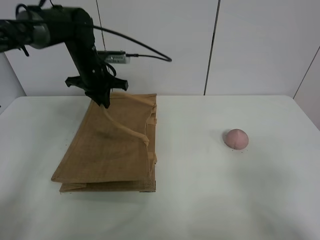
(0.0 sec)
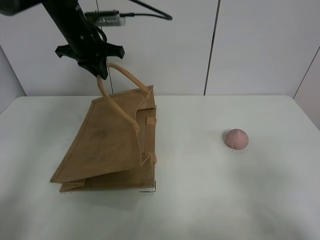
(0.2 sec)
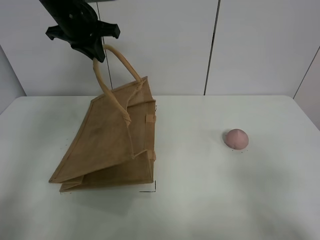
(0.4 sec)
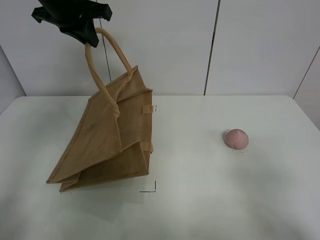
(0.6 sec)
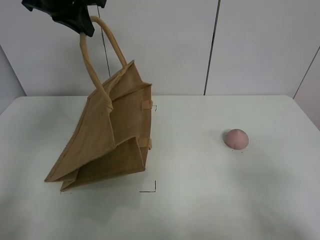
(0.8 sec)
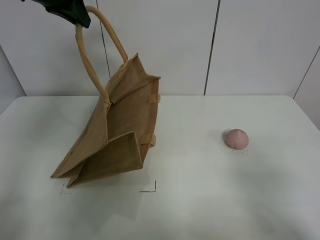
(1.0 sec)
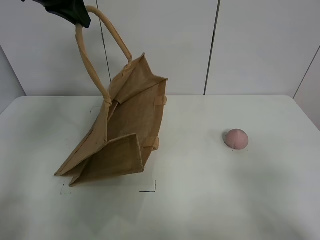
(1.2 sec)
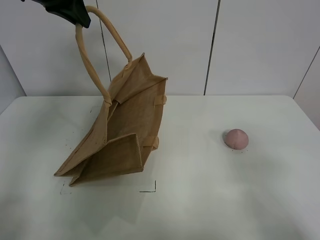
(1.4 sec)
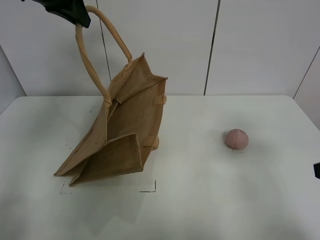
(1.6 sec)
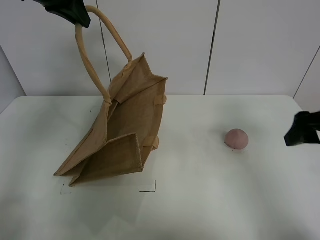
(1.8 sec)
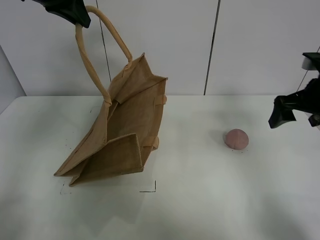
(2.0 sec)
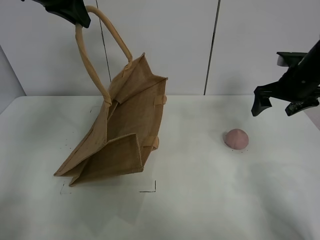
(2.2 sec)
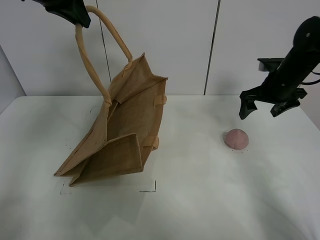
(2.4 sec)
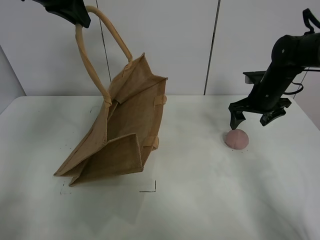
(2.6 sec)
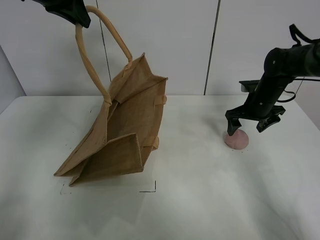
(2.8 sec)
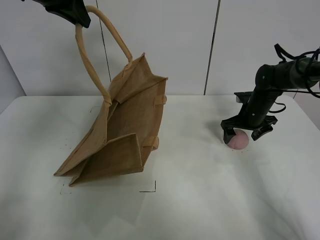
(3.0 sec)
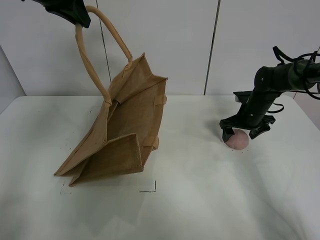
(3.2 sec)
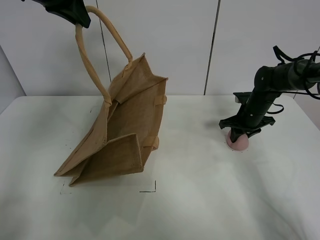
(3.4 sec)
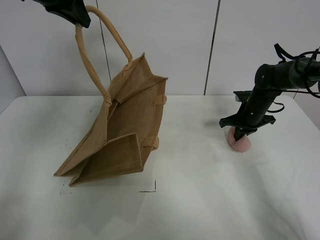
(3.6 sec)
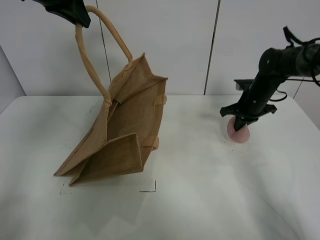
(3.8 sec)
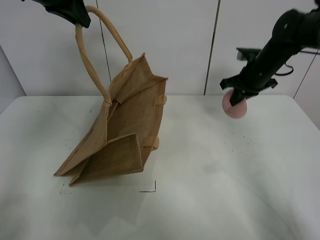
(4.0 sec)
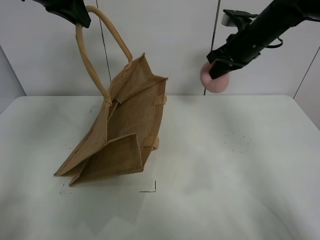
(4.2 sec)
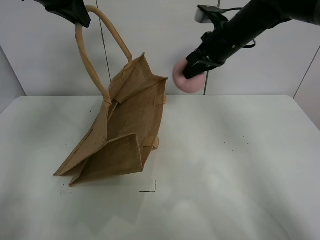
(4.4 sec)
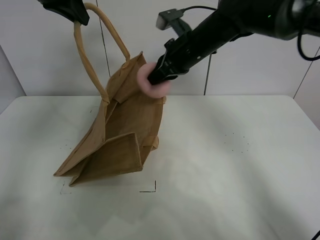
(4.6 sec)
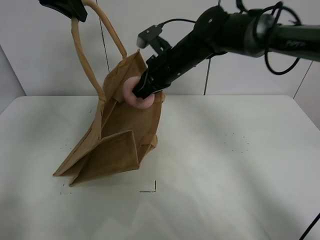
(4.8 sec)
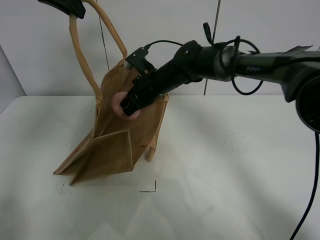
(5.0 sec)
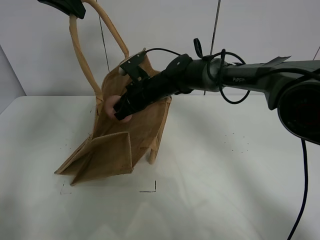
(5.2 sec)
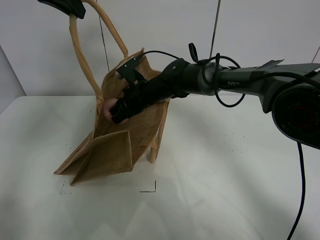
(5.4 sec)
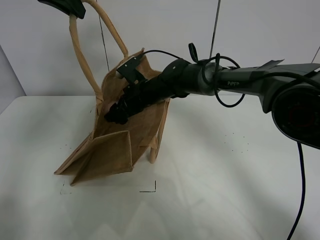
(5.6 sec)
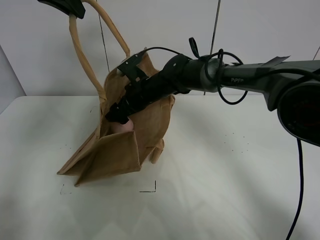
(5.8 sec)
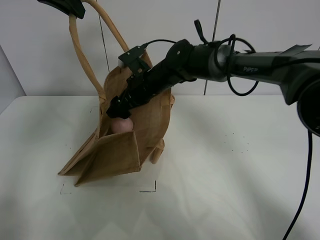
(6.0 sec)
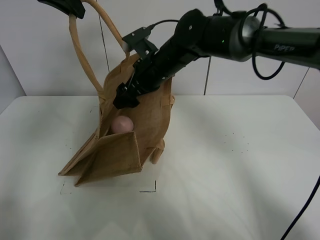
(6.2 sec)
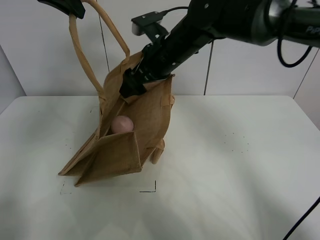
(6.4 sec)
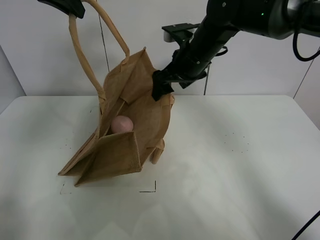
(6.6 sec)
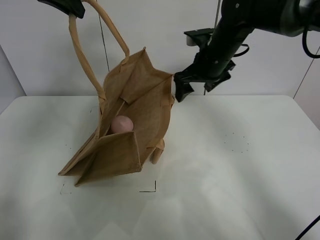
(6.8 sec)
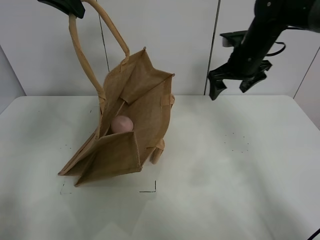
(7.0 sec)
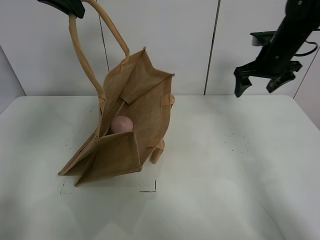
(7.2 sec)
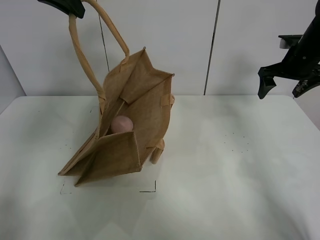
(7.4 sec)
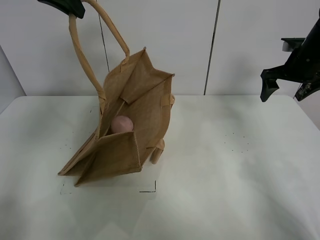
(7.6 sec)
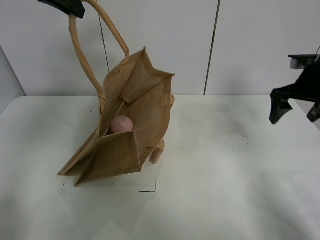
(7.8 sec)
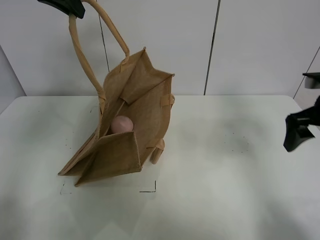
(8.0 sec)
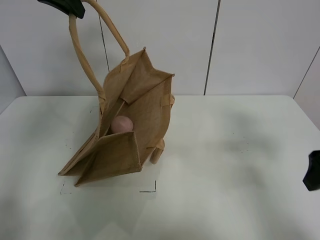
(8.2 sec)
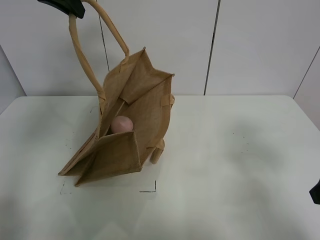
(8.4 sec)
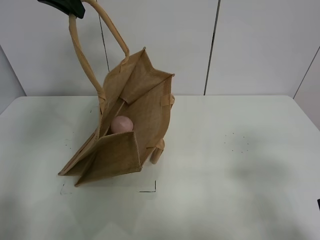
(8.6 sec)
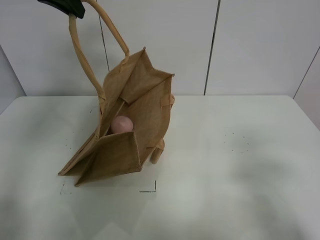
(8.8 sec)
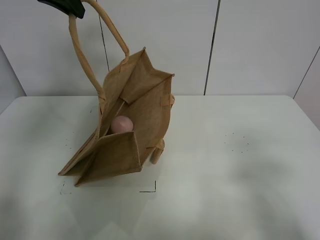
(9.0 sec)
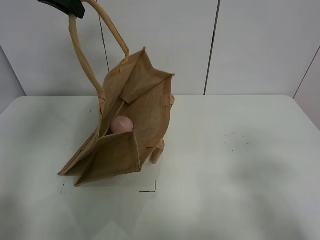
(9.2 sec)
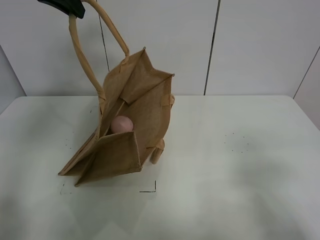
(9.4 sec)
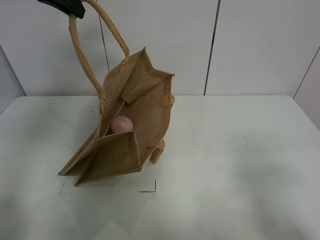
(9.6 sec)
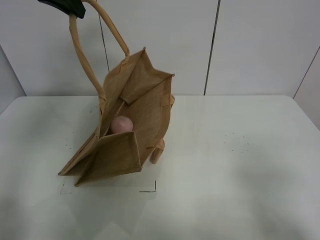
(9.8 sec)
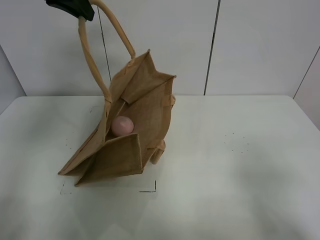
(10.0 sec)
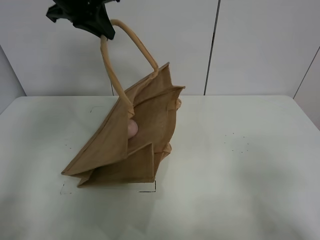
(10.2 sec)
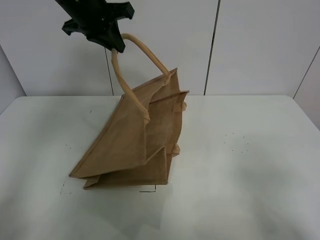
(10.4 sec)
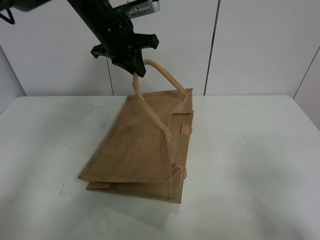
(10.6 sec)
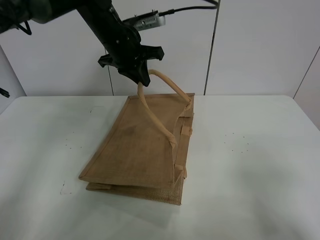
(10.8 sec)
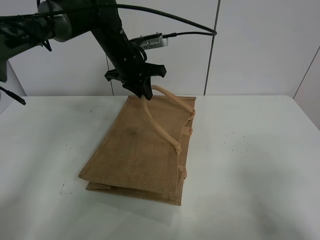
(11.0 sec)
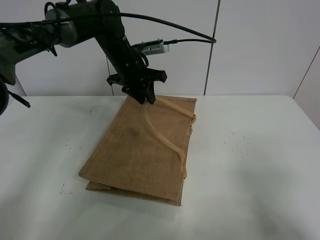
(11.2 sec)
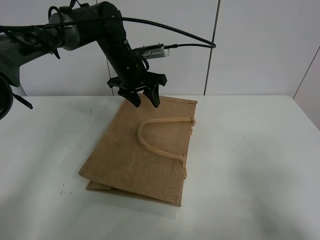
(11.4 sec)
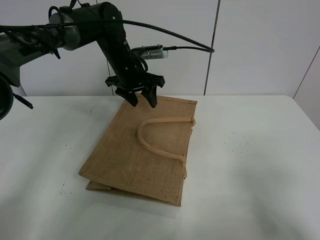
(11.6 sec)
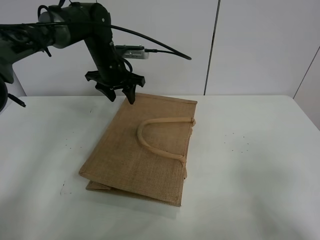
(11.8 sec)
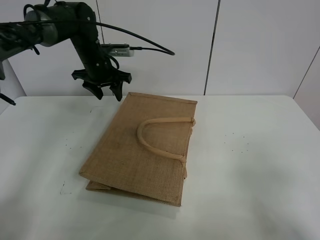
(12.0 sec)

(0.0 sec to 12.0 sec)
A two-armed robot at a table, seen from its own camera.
Task of the whole recording: open the brown linen bag and put the peach in the bag.
Step, 1.2 sec - 3.4 sec: Grasp the peach with right gripper.
Step, 3.6 sec - 6.6 sec: Place the peach in the handbag with right gripper.
Step, 6.8 sec - 11.8 sec: Put down the handbag with left grippe.
0.0 sec - 1.6 sec: The left gripper moves upward, roughly 25 cm. The right gripper shifts approximately 5 cm forward.
1.6 sec - 3.0 sec: The right gripper shifts roughly 40 cm forward and downward.
3.0 sec - 4.4 sec: The right gripper goes some 20 cm upward and to the left, and closes its fingers.
4.4 sec - 6.0 sec: The right gripper heads to the left and downward, covering some 20 cm, and opens its fingers.
6.0 sec - 7.6 sec: The right gripper heads to the right, covering roughly 35 cm.
7.6 sec - 9.0 sec: The right gripper travels backward by roughly 35 cm.
9.0 sec - 10.4 sec: The right gripper moves backward, about 5 cm; the left gripper shifts some 5 cm downward.
10.4 sec - 12.0 sec: The left gripper shifts roughly 15 cm downward and forward, and opens up.

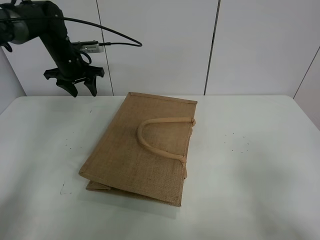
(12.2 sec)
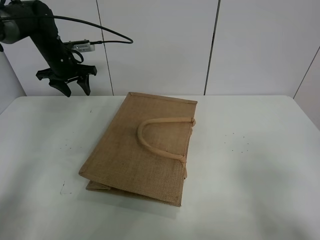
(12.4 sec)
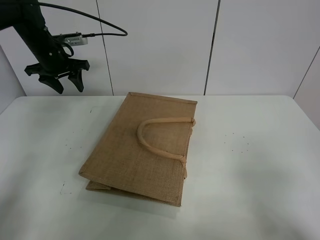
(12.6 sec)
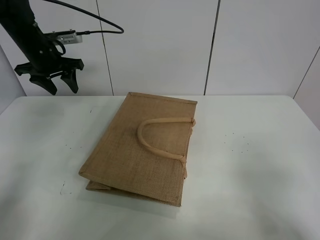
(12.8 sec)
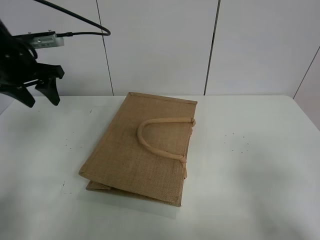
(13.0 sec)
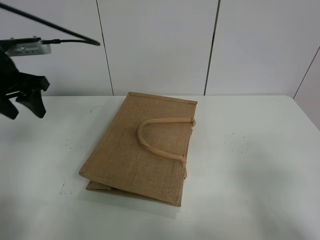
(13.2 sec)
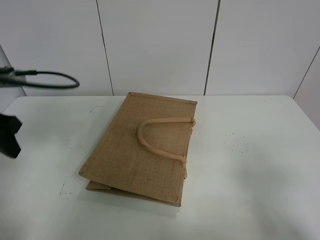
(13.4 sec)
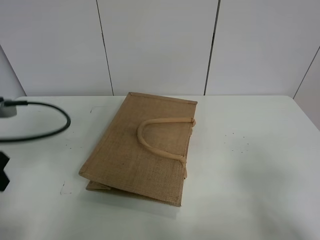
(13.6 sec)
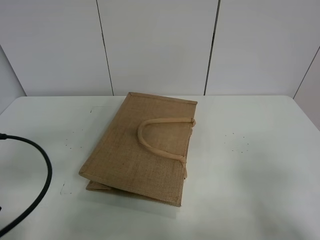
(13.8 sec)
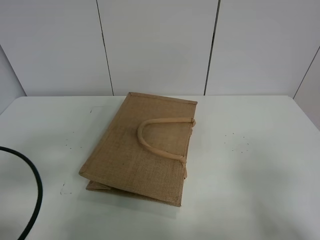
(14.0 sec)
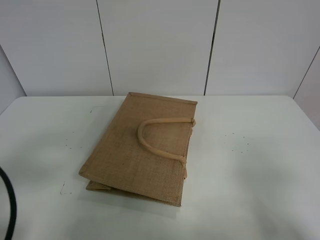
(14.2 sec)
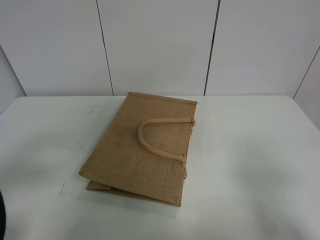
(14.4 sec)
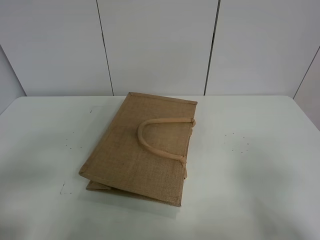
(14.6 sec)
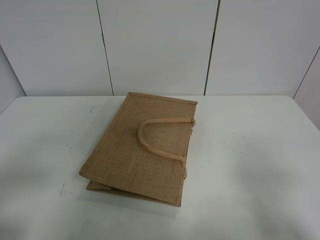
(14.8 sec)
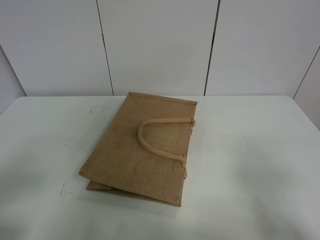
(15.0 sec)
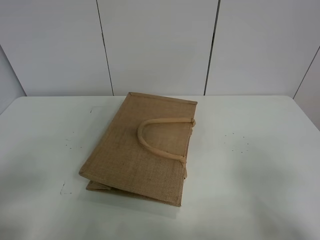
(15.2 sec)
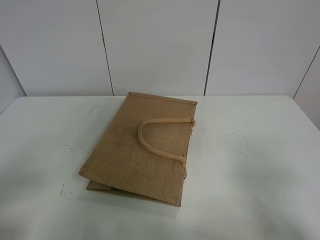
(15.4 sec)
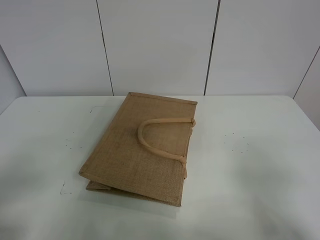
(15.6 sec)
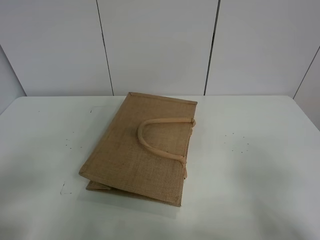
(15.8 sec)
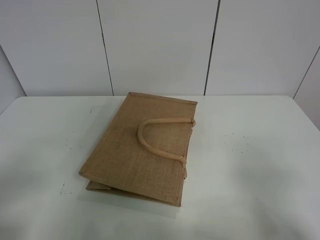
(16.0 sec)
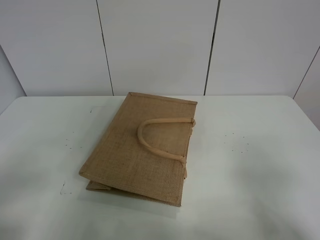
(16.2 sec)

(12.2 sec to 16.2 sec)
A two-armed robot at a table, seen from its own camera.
Task of the whole recording: open the brown linen bag and put the peach in the bag.
12.2 sec - 13.6 sec: The left gripper heads backward, covering approximately 30 cm.
13.6 sec - 14.8 sec: The left gripper heads backward, covering roughly 15 cm.
